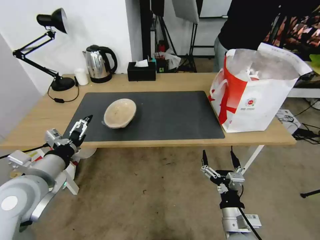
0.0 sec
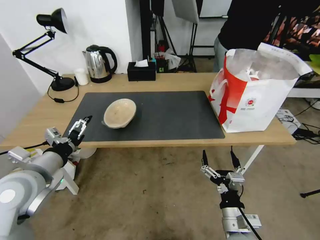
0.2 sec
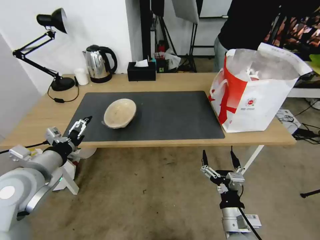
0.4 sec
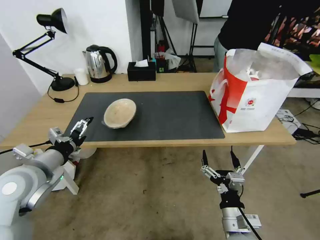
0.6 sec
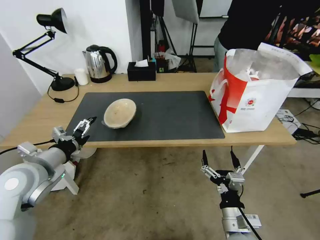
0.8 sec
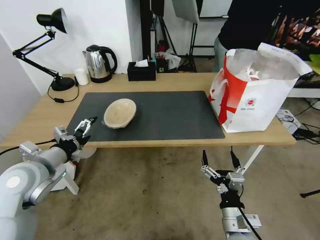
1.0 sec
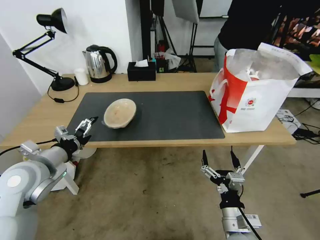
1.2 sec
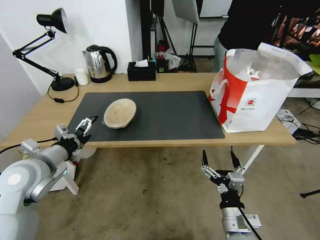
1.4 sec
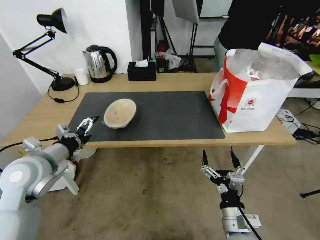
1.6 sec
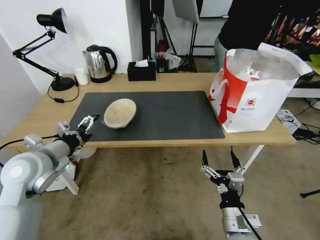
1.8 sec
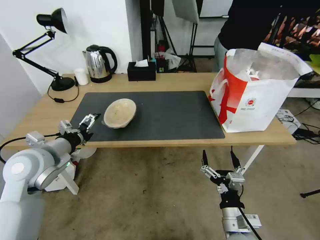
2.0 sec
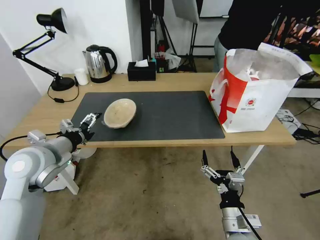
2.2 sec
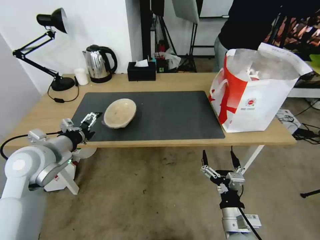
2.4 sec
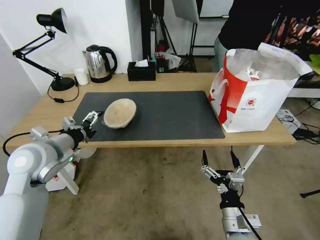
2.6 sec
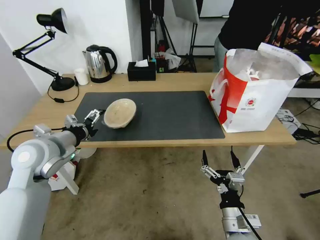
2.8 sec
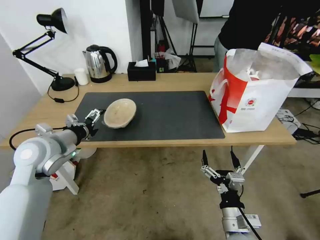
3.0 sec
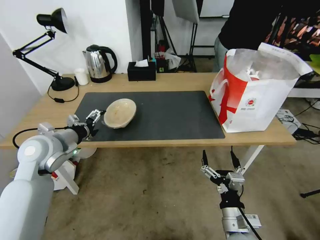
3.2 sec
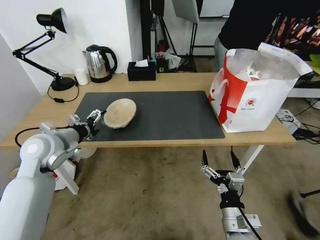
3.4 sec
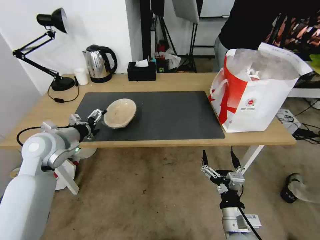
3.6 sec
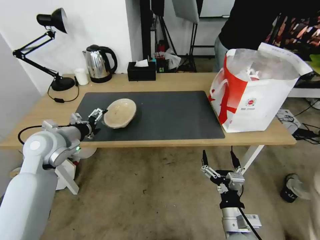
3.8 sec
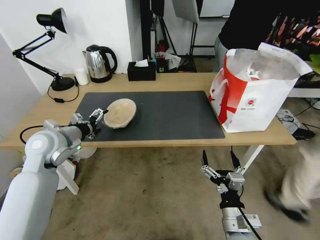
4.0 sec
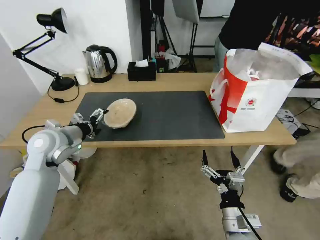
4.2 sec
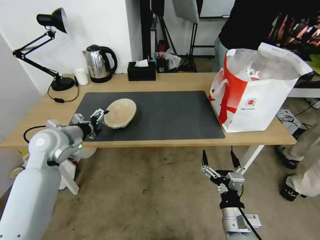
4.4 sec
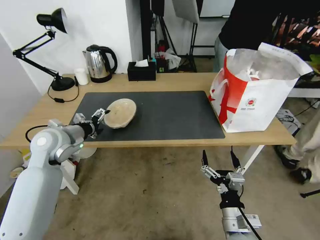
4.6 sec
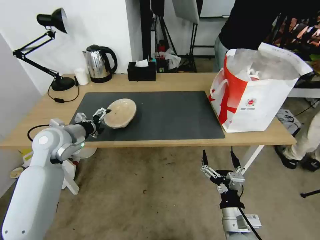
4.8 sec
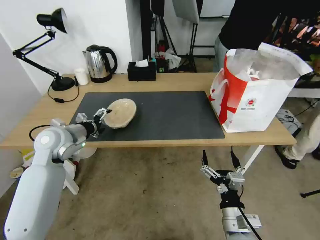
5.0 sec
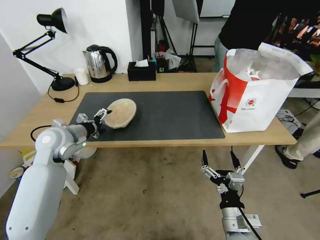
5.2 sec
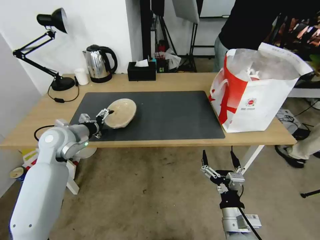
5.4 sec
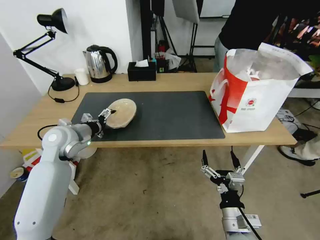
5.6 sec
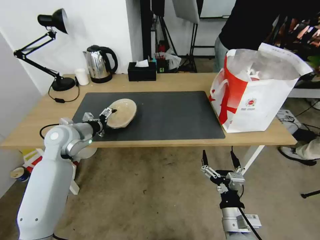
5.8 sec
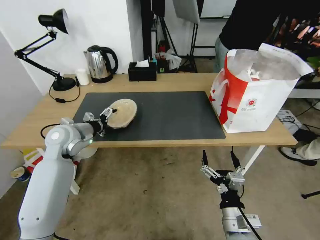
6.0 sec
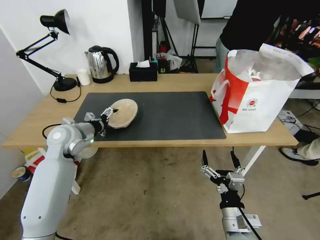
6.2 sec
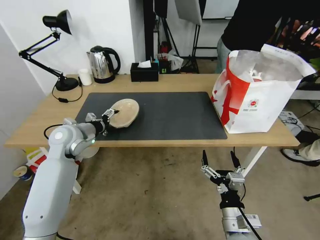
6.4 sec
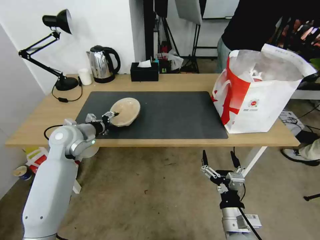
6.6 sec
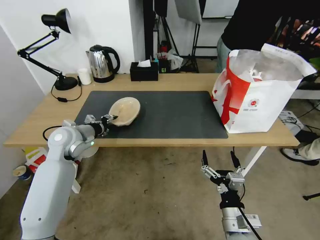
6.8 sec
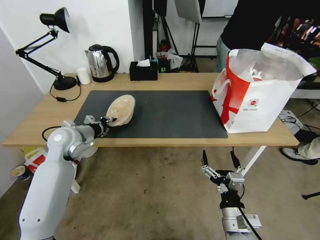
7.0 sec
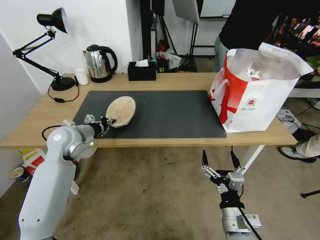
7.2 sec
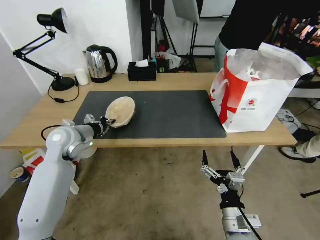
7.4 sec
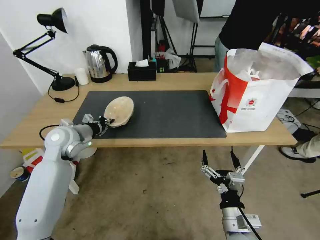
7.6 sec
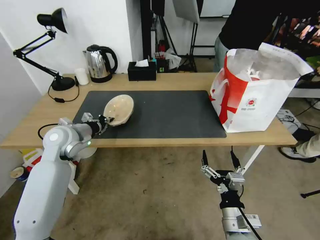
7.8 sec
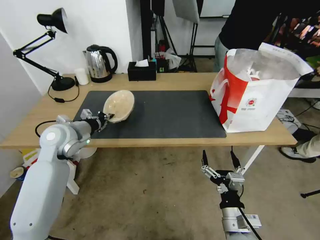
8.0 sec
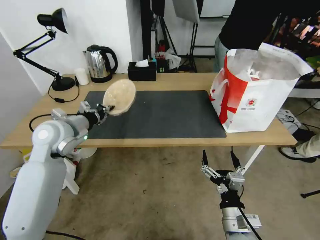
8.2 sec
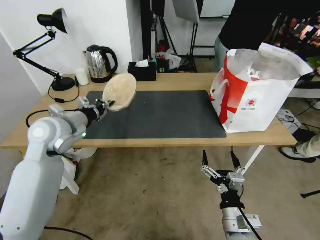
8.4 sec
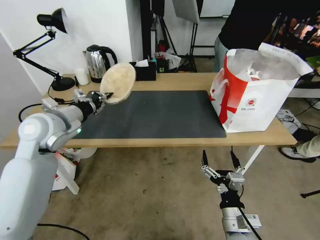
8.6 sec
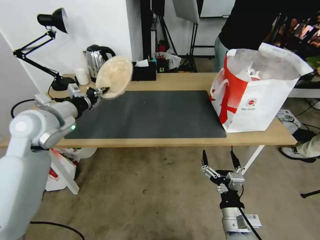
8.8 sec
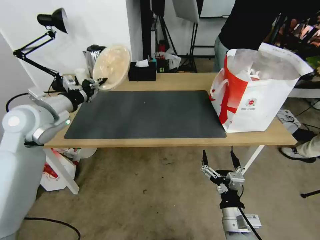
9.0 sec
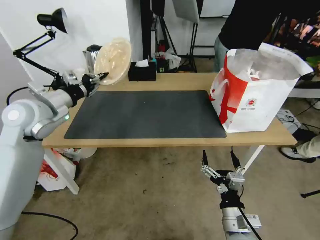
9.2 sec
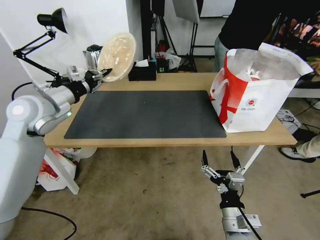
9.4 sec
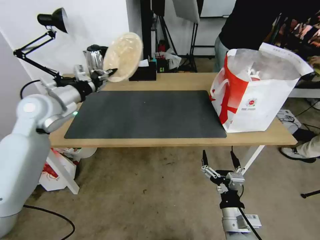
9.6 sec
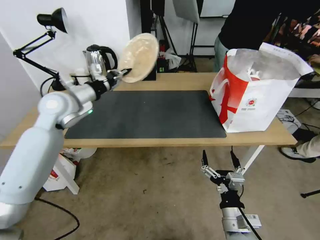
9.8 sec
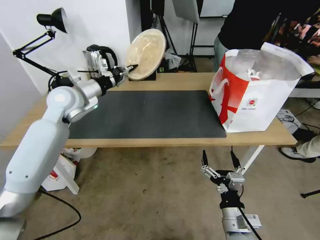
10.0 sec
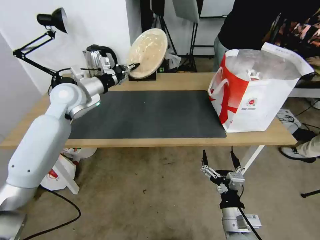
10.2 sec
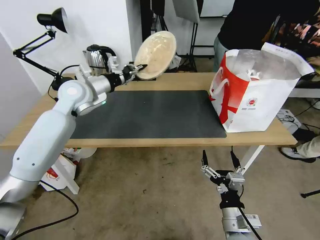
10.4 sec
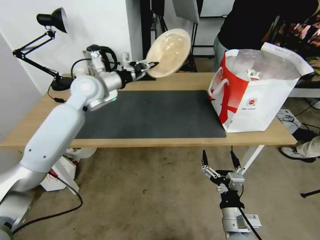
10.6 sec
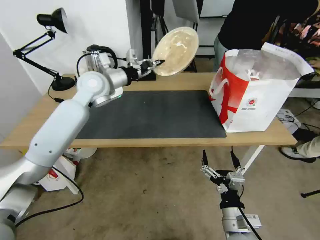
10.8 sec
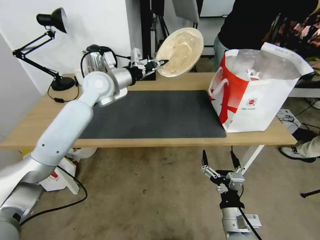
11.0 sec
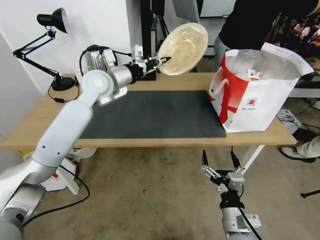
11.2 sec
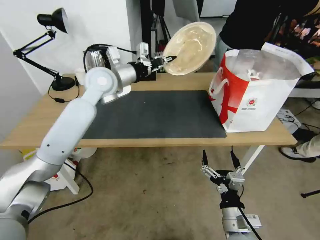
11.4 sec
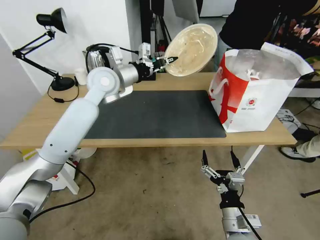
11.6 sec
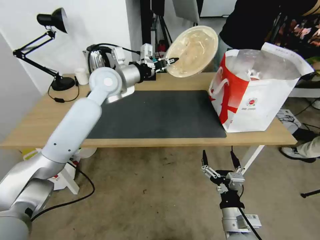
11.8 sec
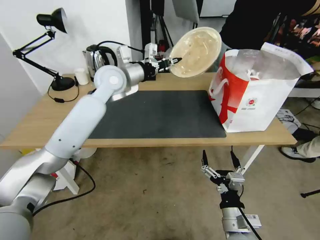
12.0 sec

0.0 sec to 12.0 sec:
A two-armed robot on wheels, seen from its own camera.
Task of the whole recording: Pick up the trash from the table and place it into the takeout bag.
0.0 sec to 1.6 sec: The left gripper moves forward, about 5 cm.
1.6 sec to 3.0 sec: The left gripper moves roughly 5 cm.
3.0 sec to 4.4 sec: The left gripper shifts by about 5 cm.
4.4 sec to 6.0 sec: The grippers move only a little.
6.0 sec to 7.6 sec: The left gripper closes its fingers.
7.6 sec to 9.0 sec: The left gripper shifts about 10 cm upward.
9.0 sec to 10.4 sec: The left gripper heads forward and to the right, covering approximately 15 cm.
10.4 sec to 12.0 sec: The left gripper heads to the right, covering roughly 10 cm.

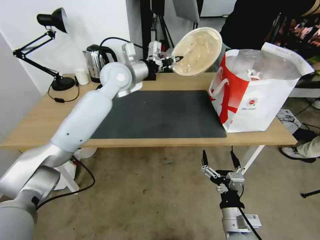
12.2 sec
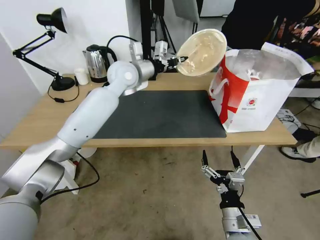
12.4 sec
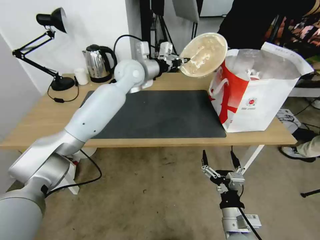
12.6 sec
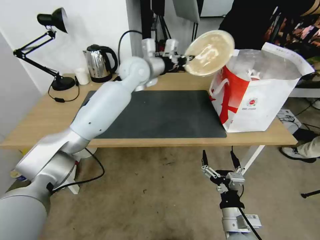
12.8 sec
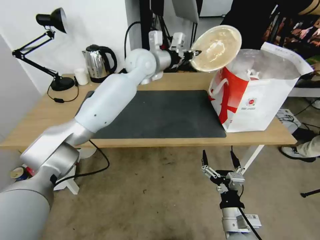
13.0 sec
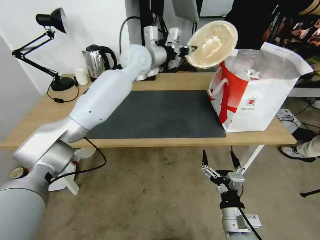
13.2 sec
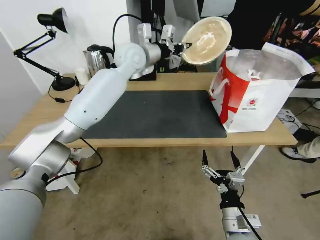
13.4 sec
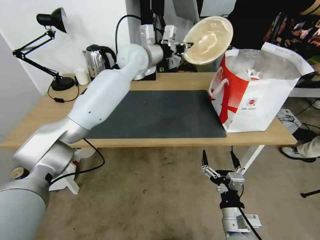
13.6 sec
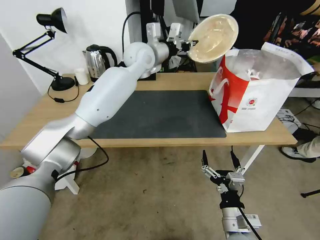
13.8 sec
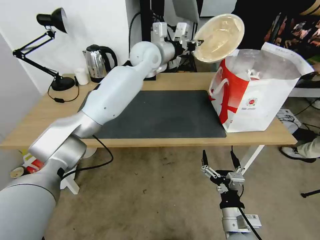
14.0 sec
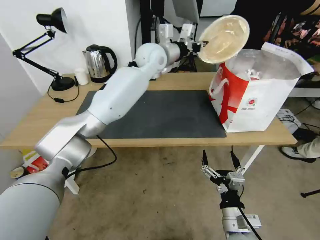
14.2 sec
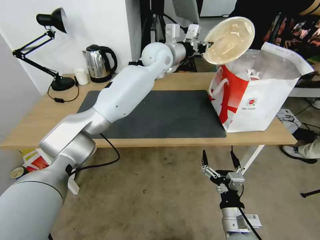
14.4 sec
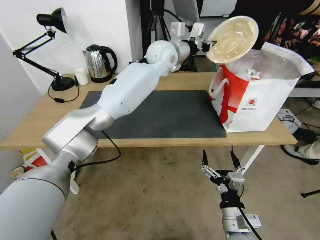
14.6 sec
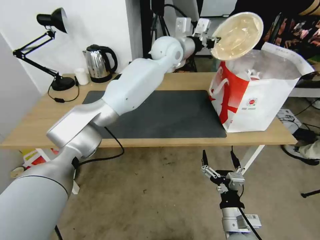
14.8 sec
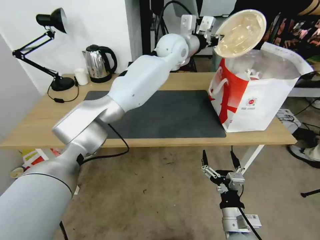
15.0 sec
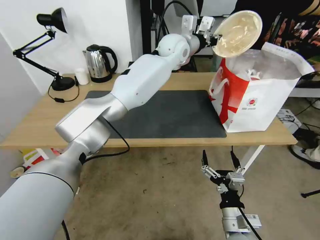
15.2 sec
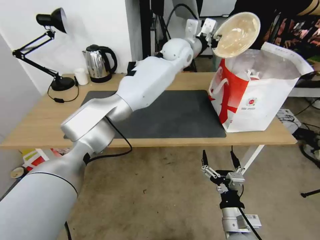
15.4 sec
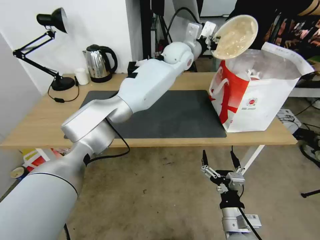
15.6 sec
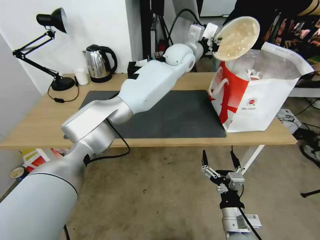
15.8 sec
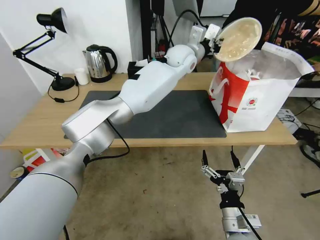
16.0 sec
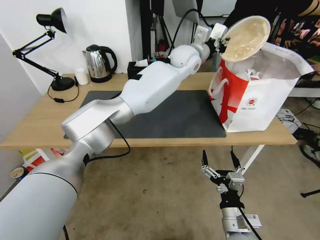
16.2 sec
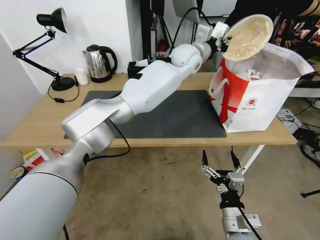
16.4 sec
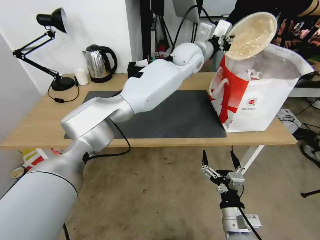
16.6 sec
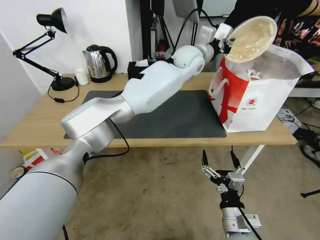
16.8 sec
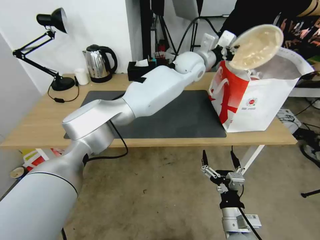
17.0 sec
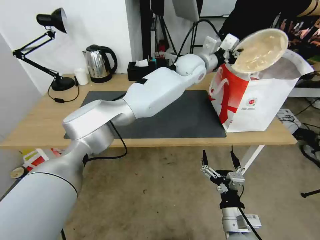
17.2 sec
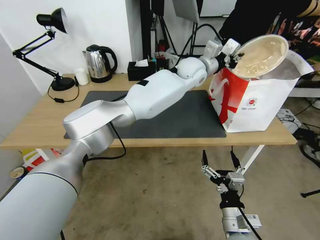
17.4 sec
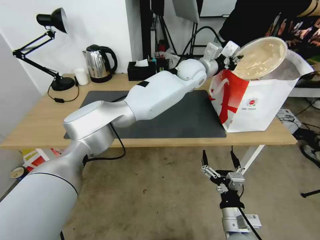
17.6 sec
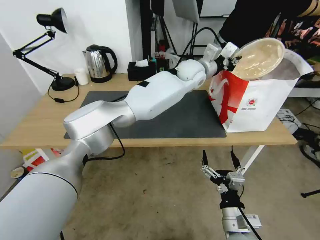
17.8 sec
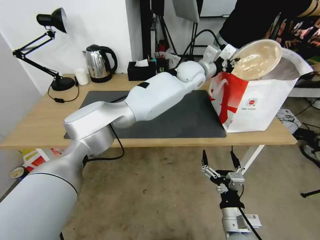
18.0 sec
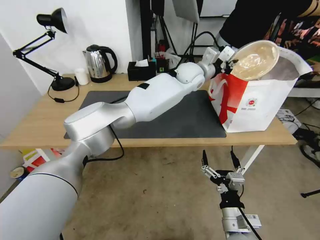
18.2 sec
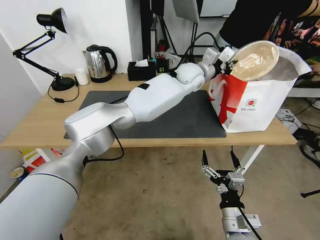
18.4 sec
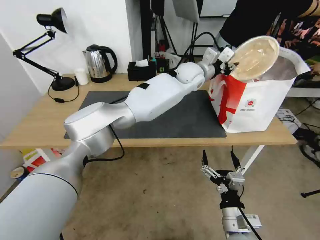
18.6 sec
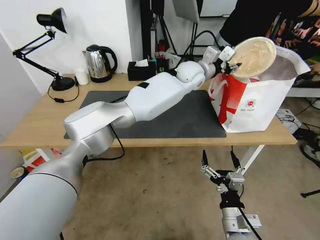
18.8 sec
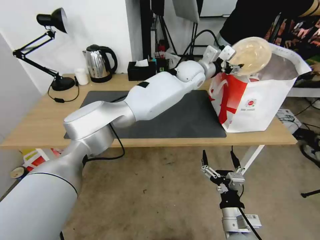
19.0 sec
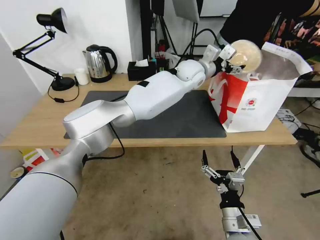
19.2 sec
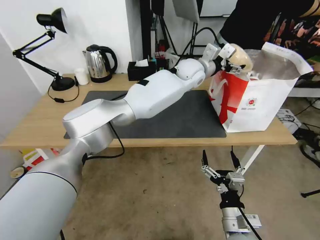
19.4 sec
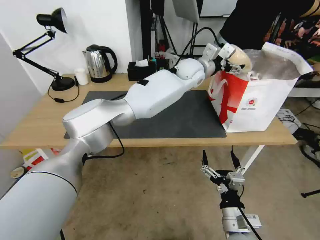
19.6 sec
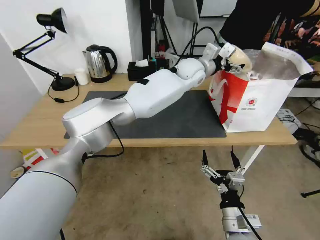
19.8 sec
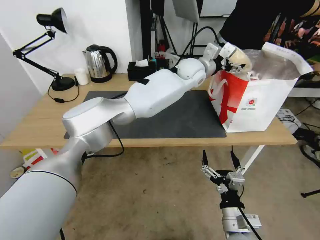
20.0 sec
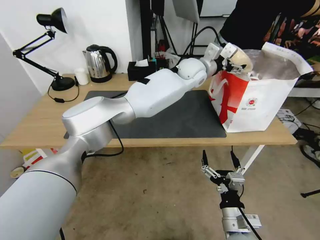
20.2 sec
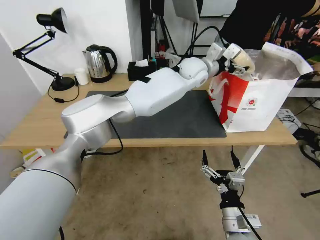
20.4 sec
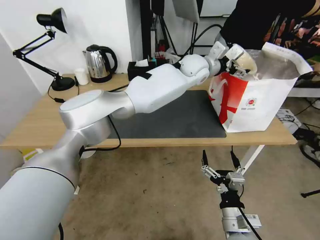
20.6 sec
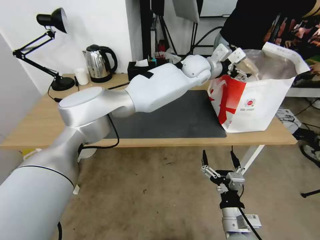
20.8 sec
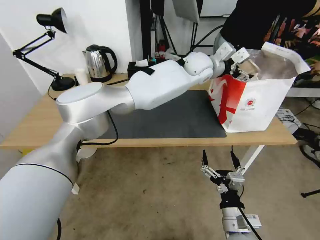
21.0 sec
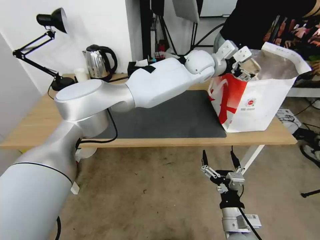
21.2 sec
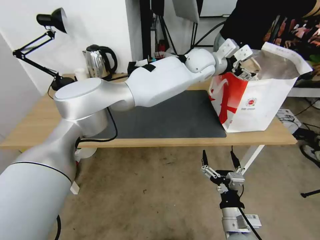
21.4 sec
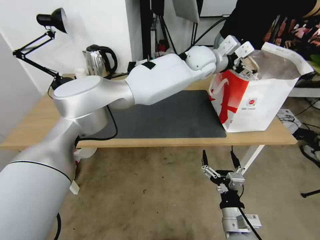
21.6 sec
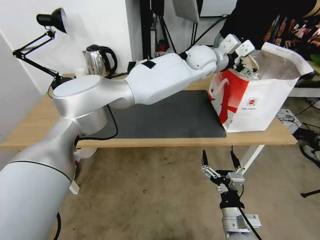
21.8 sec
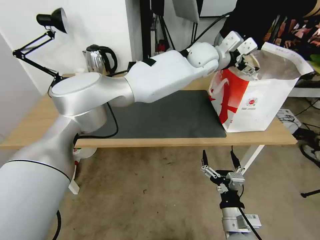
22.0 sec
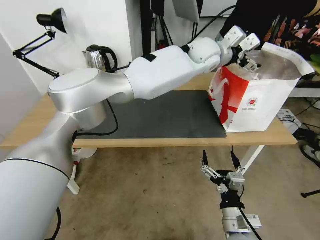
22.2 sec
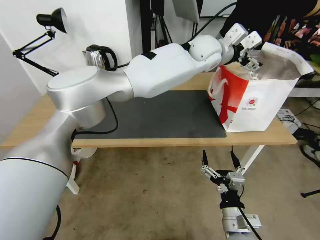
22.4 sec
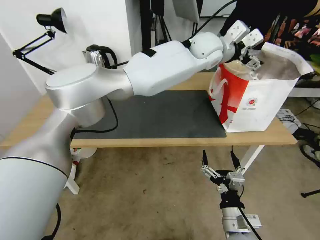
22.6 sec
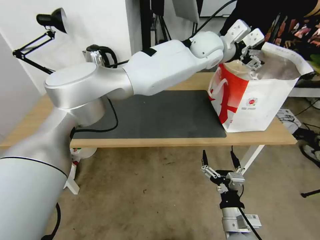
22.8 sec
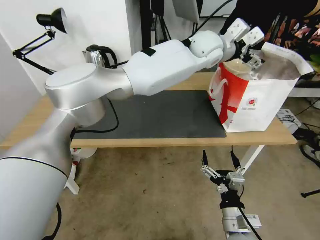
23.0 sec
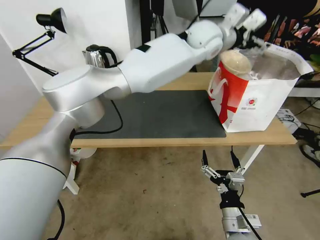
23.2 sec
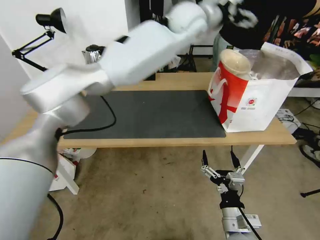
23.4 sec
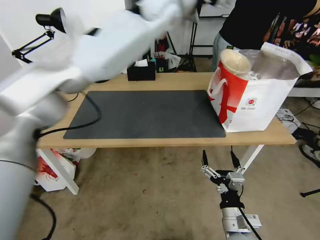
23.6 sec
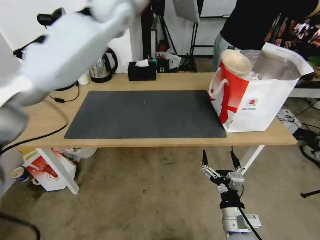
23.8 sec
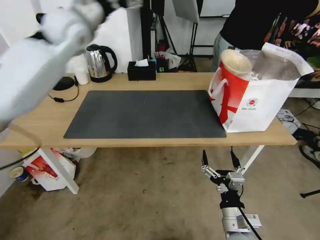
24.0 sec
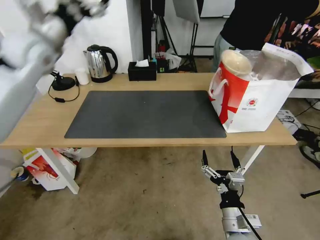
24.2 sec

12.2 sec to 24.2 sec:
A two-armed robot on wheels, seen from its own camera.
Task of the whole recording: Pick up the trash from the table and place it into the takeout bag.
12.2 sec to 13.8 sec: The left gripper moves to the right, some 5 cm.
13.8 sec to 15.2 sec: The left gripper heads to the right, covering some 10 cm.
15.2 sec to 16.6 sec: The left gripper changes place by some 5 cm.
16.6 sec to 18.2 sec: The left gripper travels downward by roughly 5 cm.
18.2 sec to 19.8 sec: The left gripper opens.
19.8 sec to 21.2 sec: The grippers stay close to where they were, moving slightly.
21.2 sec to 22.6 sec: The left gripper heads upward, covering roughly 5 cm.
22.6 sec to 24.2 sec: The left gripper moves to the left, approximately 40 cm.
